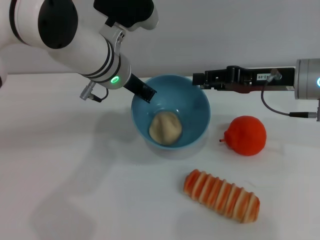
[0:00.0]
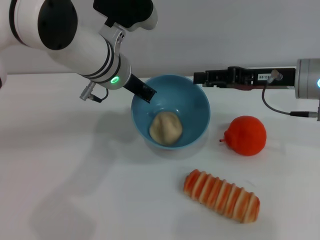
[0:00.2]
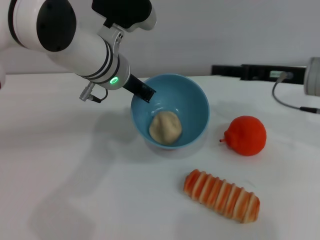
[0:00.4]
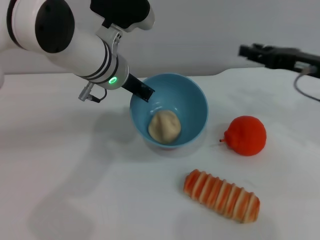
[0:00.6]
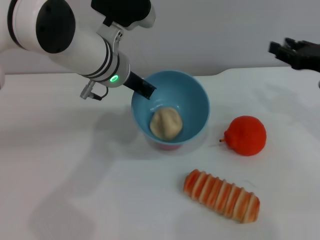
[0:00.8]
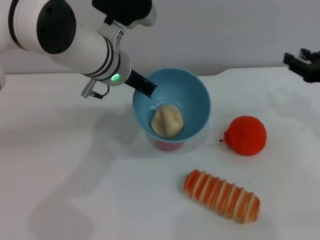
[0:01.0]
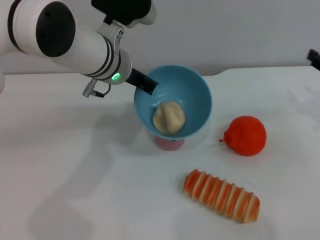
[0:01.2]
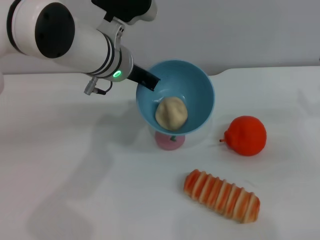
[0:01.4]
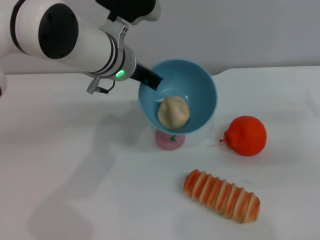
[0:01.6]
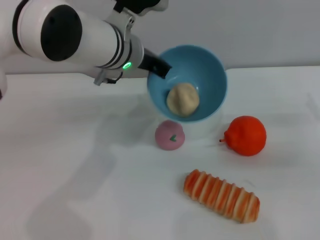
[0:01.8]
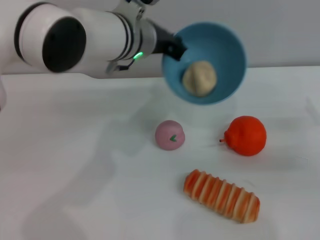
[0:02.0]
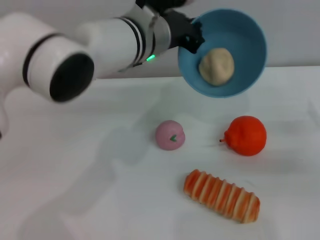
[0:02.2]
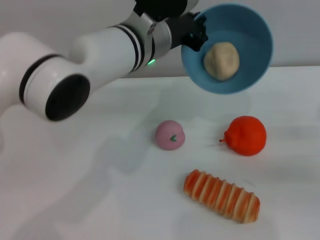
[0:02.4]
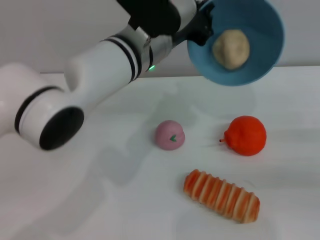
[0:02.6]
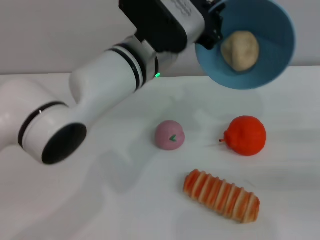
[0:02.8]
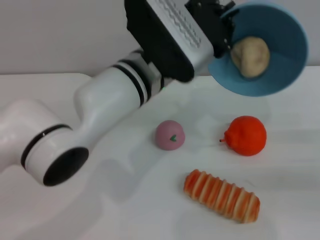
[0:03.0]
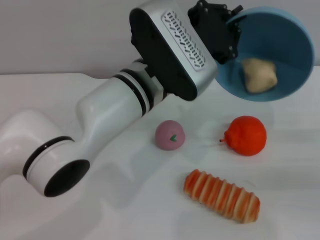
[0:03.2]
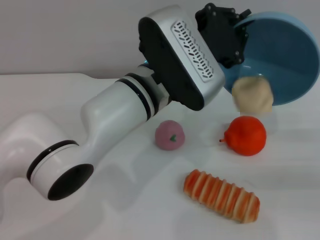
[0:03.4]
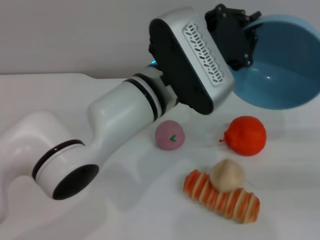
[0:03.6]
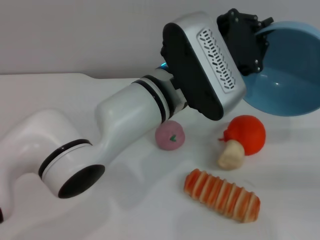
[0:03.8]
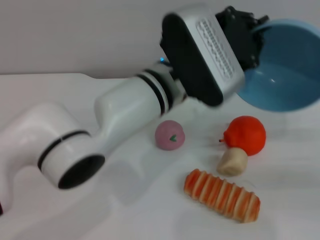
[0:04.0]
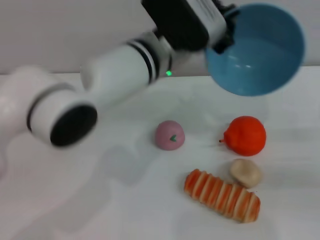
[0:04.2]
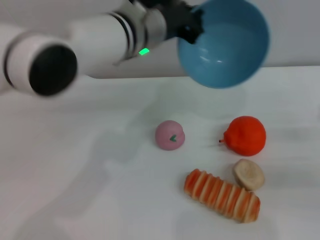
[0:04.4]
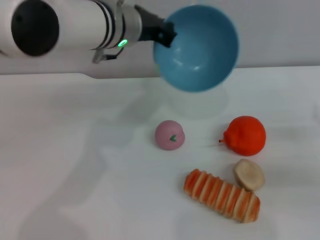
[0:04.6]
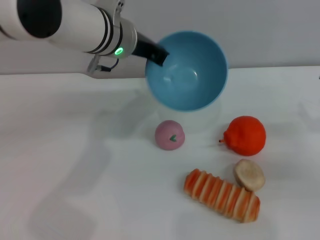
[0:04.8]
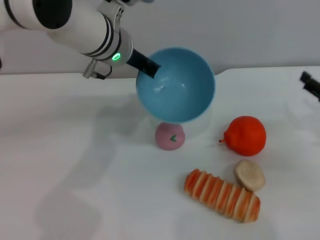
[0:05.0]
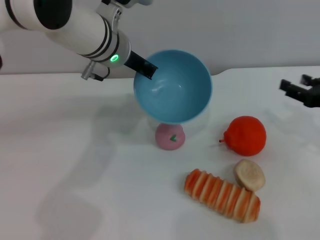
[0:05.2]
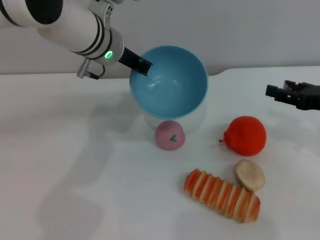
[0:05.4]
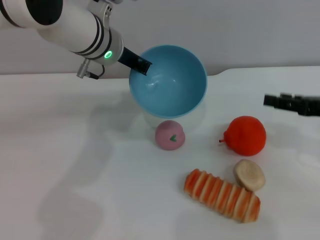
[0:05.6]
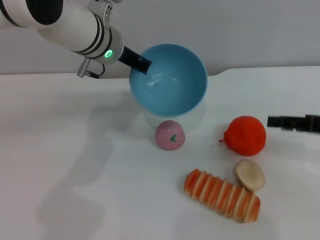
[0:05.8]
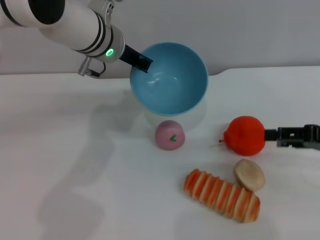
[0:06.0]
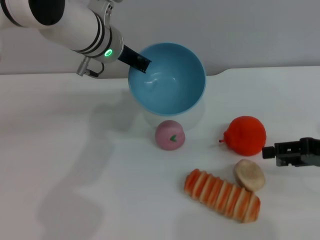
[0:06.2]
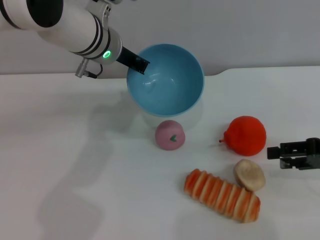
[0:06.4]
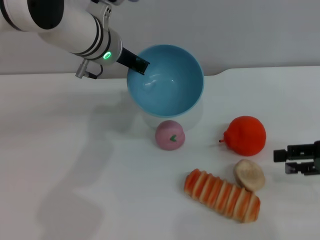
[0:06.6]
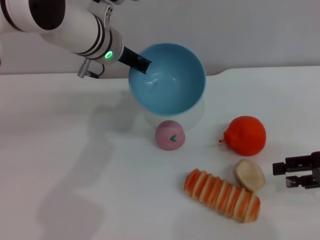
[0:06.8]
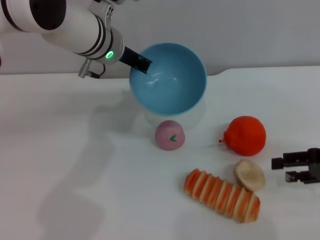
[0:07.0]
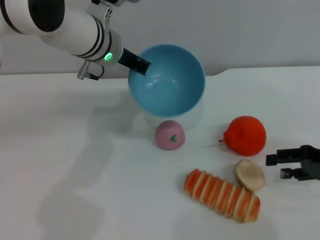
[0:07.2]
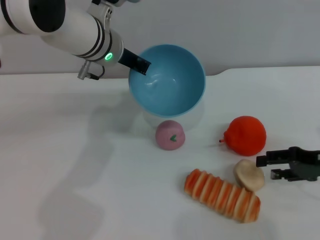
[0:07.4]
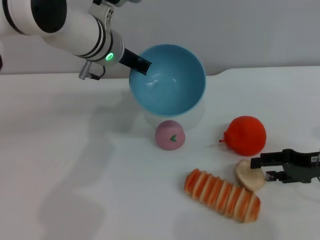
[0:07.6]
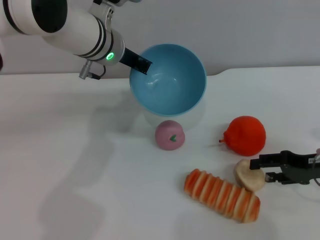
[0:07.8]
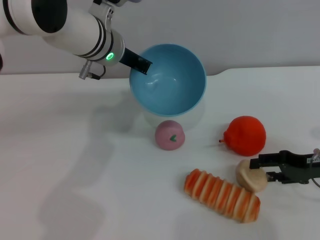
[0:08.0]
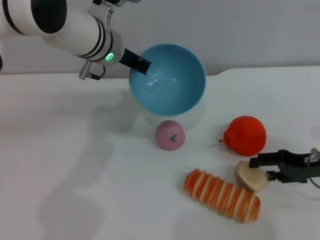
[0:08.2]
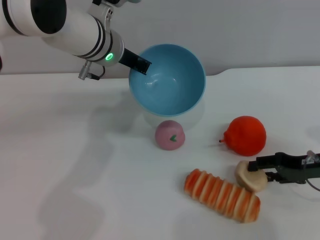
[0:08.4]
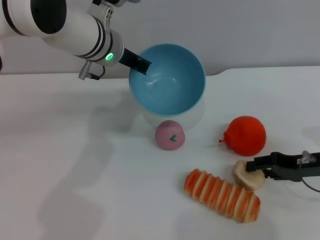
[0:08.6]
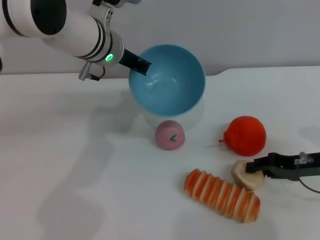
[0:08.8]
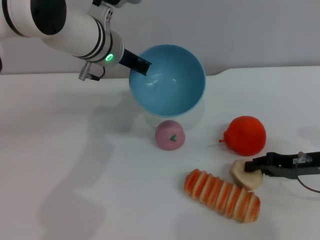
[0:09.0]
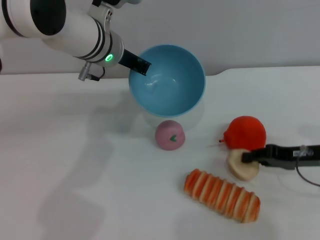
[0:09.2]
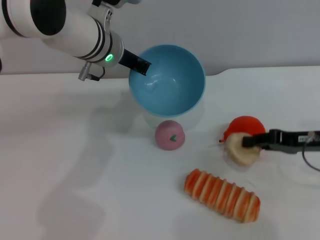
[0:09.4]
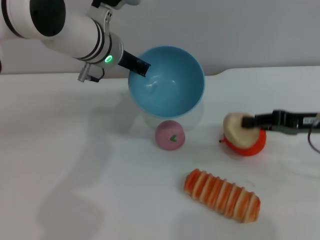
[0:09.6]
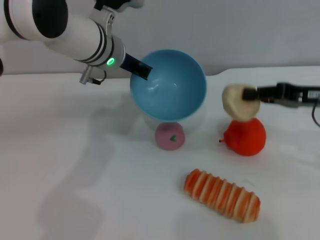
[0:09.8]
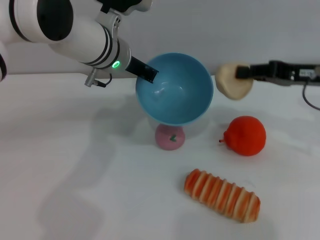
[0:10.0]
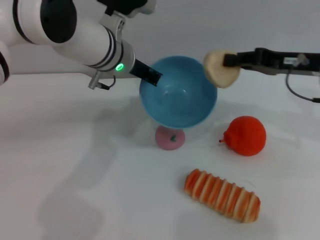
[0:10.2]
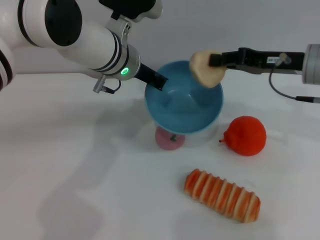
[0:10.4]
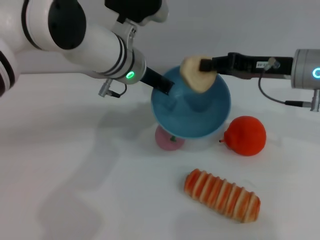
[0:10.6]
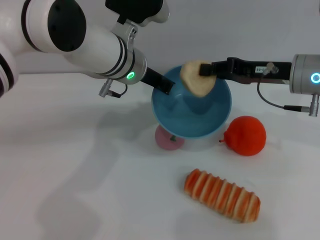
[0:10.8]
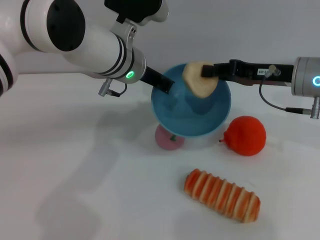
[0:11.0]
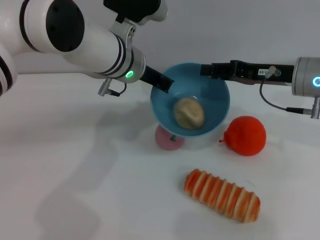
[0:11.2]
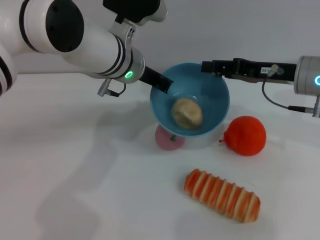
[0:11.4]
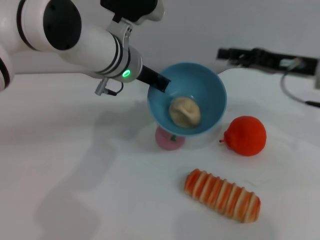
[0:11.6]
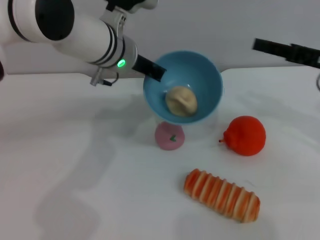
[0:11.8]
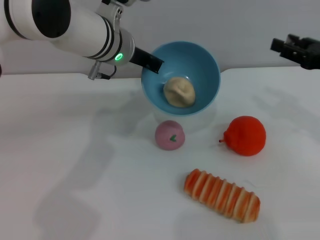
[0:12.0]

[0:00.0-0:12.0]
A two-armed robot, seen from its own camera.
Task of the whole recording: put the egg yolk pastry into the blue bowl and pour it out repeatedly.
Step, 0:00.0 to 0:01.0: Place the egg yolk pastry into the bowl.
Step, 0:01.2 to 0:04.0: Pour the egg yolk pastry out of bowl.
Step, 0:04.2 to 0:09.8: Pick up the egg yolk pastry with the right gripper.
Step, 0:10.2 to 0:11.6: Place the egg yolk pastry into the bowl.
0:00.0 to 0:01.6: The right gripper goes about 15 cm to the right and downward, and opens.
0:01.6 to 0:03.0: The right gripper moves approximately 5 cm. Meanwhile the left gripper shifts roughly 5 cm backward.
0:03.0 to 0:04.4: The left gripper is displaced forward by roughly 5 cm.
0:04.4 to 0:06.0: The right gripper travels upward and to the left by about 10 cm, while the left gripper changes place by some 5 cm.
0:06.0 to 0:07.6: The right gripper heads downward, covering about 5 cm.
0:07.6 to 0:09.0: The grippers stay close to where they were, moving slightly.
0:09.0 to 0:10.4: The right gripper travels upward, forward and to the left by about 15 cm.
0:10.4 to 0:12.0: The right gripper heads to the right, covering some 10 cm, and opens up.

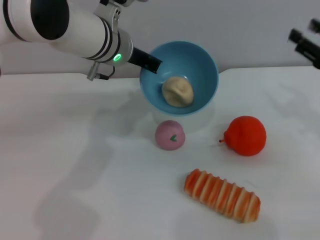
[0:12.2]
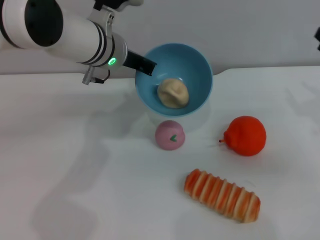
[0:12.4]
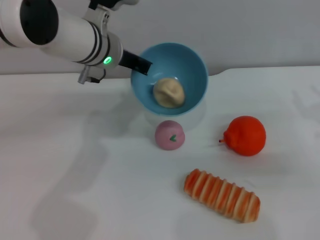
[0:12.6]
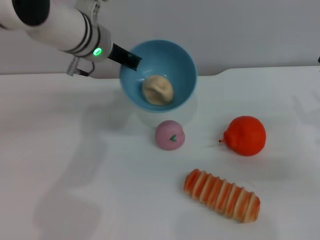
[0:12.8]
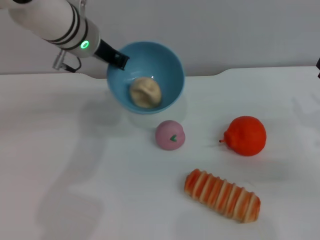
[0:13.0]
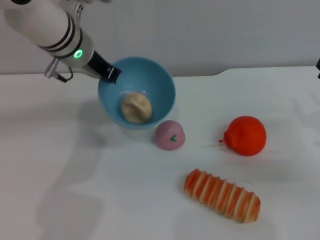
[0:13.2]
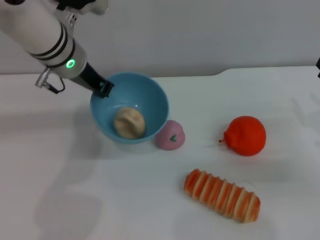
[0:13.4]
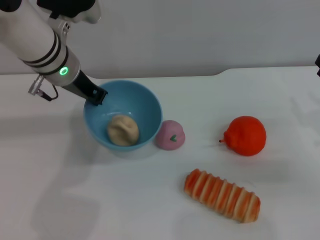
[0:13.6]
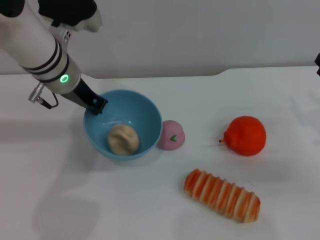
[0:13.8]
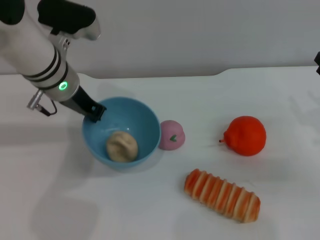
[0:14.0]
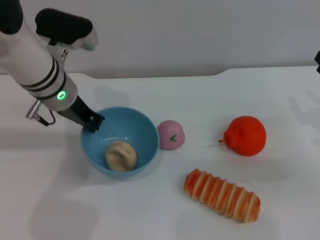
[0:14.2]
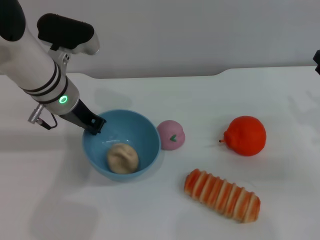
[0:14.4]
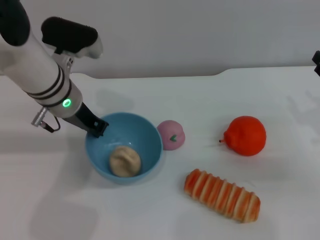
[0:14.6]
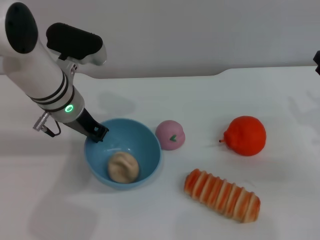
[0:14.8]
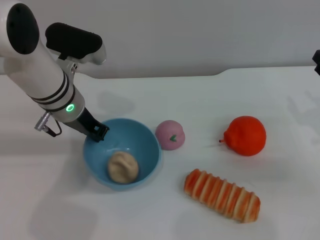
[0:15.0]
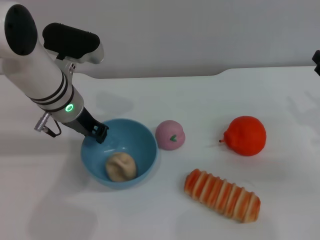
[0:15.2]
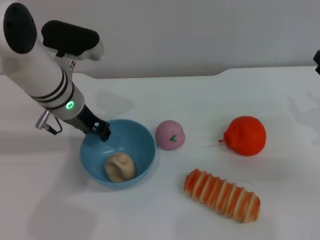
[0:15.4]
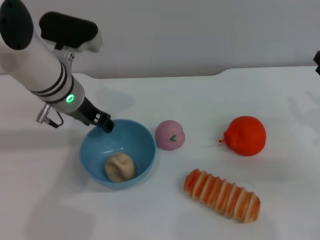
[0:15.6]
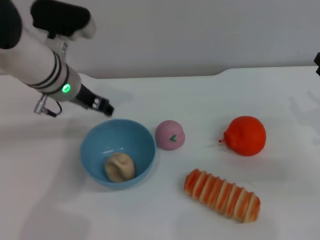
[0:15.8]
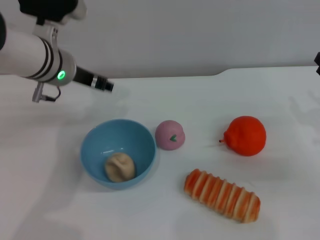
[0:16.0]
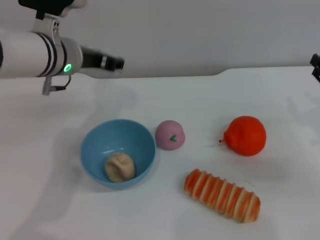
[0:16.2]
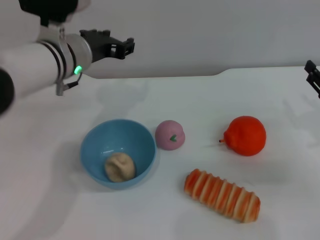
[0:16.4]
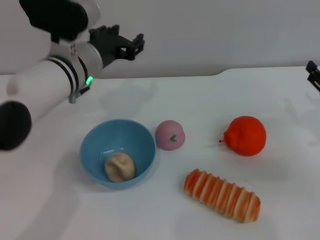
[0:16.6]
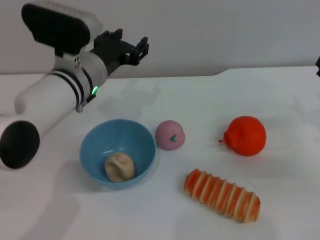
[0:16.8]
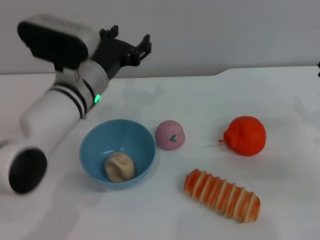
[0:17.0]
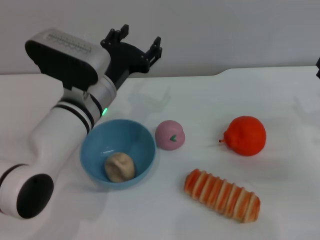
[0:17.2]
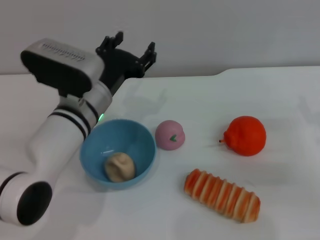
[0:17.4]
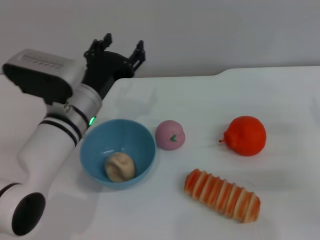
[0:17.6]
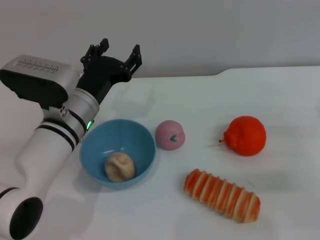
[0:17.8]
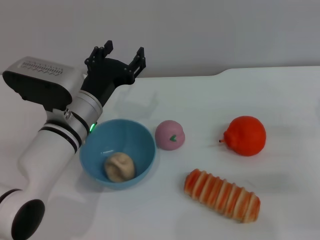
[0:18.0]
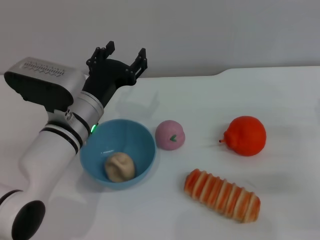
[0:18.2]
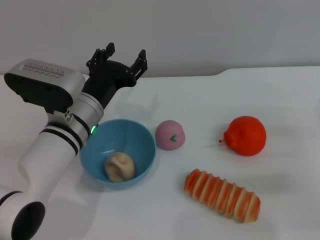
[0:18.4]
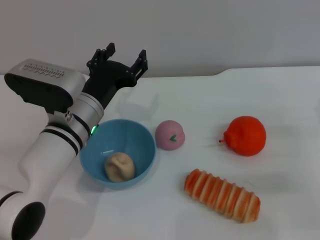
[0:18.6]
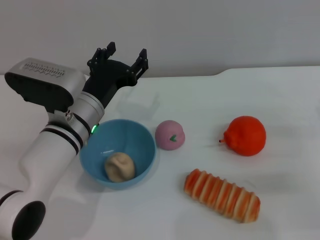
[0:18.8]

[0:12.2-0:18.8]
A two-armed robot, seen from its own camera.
Task of the whole recording: put the egg yolk pastry into the blue bowl and pour it out repeatedly.
Step, 0:12.2 to 0:15.8: Place the bowl on the table.
0:12.2 to 0:13.8: The left gripper goes some 5 cm to the left, while the right gripper is displaced downward by about 5 cm.
0:13.8 to 0:15.4: The grippers stay close to where they were, moving slightly.
0:15.4 to 0:17.2: The left gripper moves about 5 cm, and opens.
0:17.2 to 0:18.8: There are only small adjustments of the grippers.

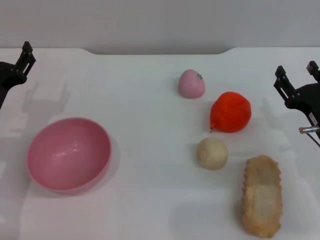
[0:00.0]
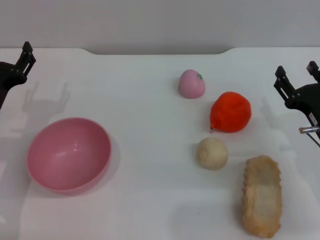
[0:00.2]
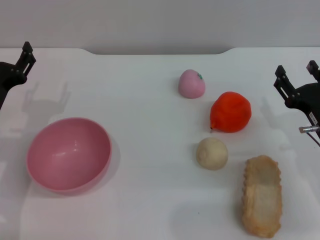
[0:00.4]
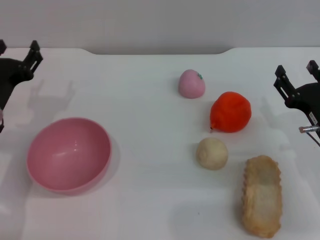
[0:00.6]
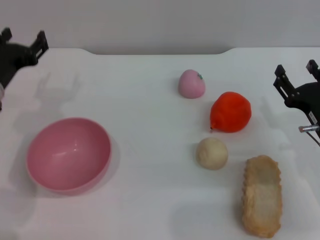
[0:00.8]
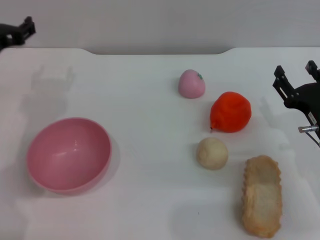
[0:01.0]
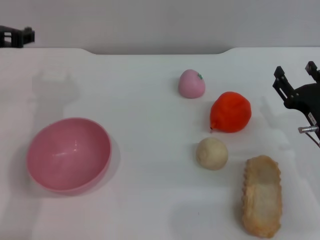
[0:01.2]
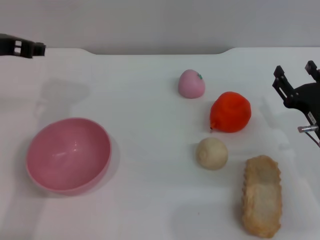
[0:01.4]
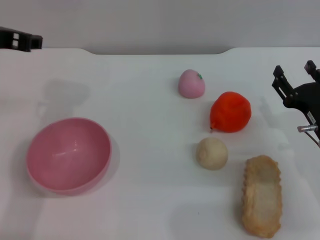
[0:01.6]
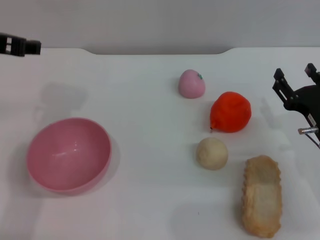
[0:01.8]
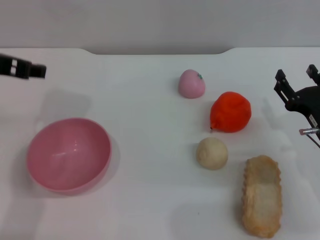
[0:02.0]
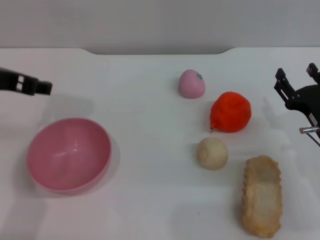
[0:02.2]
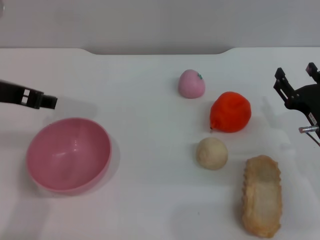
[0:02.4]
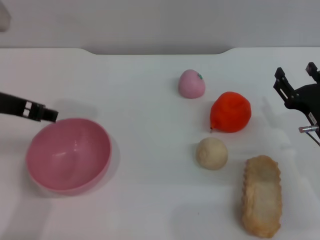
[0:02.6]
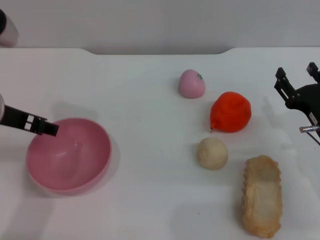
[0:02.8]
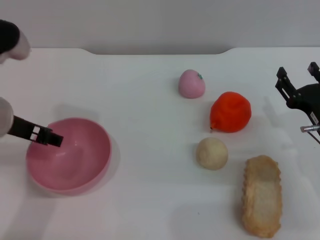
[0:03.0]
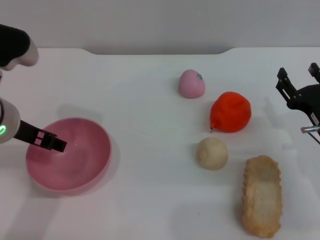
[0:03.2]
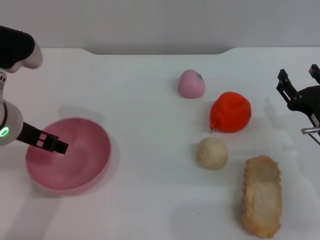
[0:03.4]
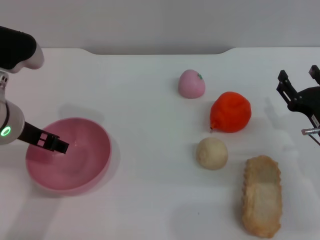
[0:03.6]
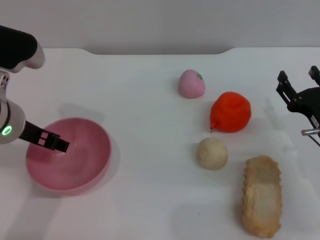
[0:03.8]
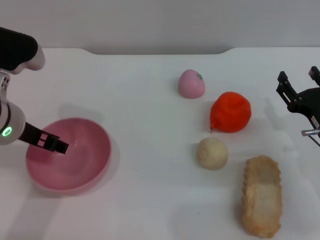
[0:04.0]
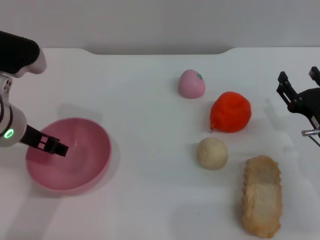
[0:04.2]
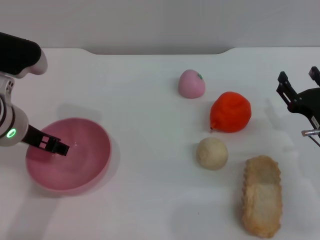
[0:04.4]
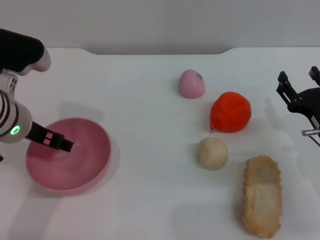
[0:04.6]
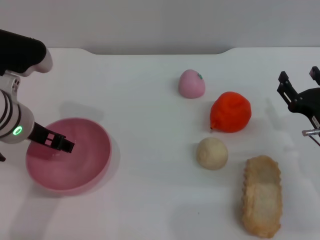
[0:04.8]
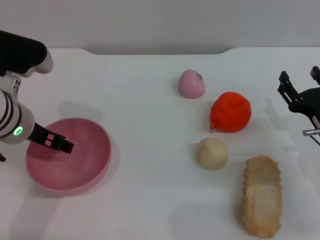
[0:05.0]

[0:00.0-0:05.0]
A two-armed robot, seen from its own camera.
Task of the whole recording: put the orange into the pink bowl and pour it out repeatedly.
0:00.0 to 0:01.6: The left gripper moves upward, some 20 cm.
0:01.6 to 0:03.4: The left gripper travels downward by some 5 cm.
0:03.4 to 0:05.0: The grippers stay close to where they were, moving slightly.
